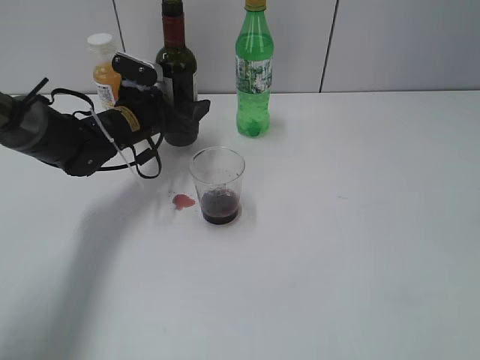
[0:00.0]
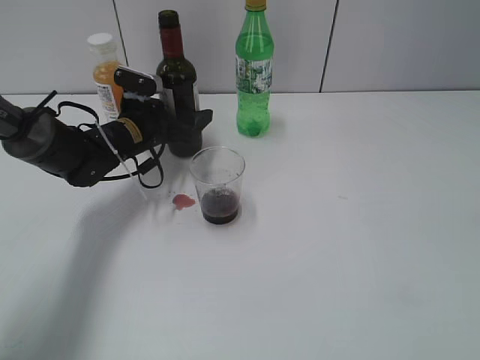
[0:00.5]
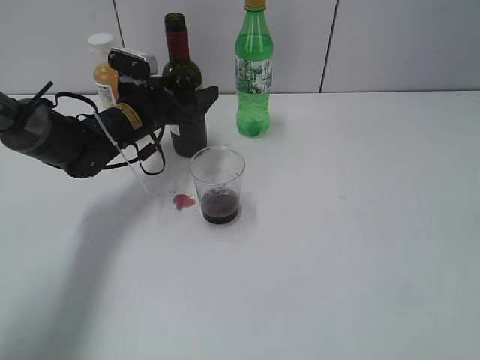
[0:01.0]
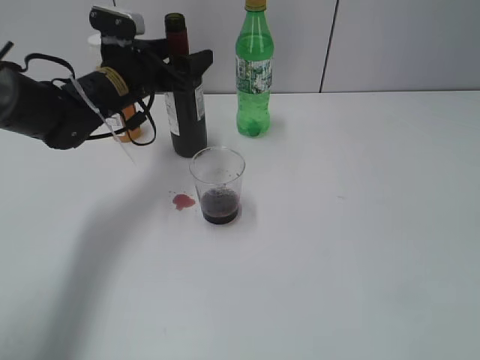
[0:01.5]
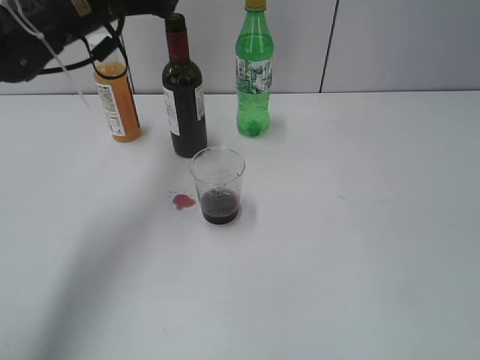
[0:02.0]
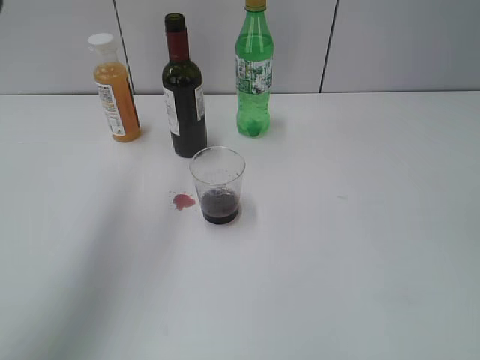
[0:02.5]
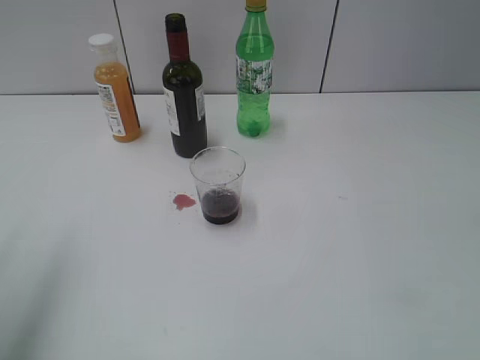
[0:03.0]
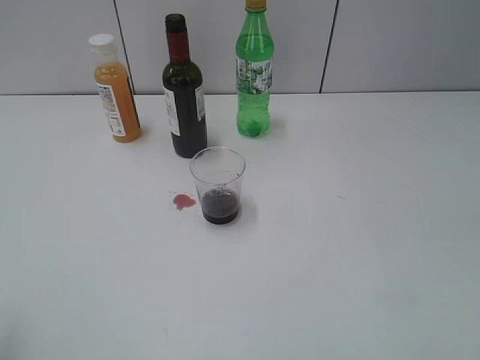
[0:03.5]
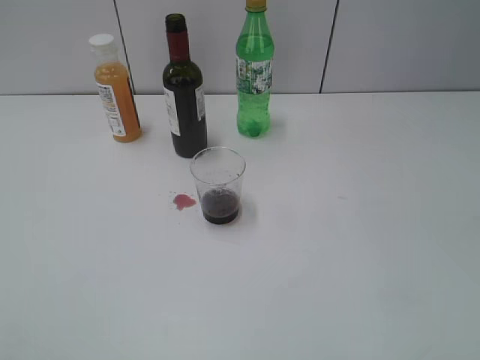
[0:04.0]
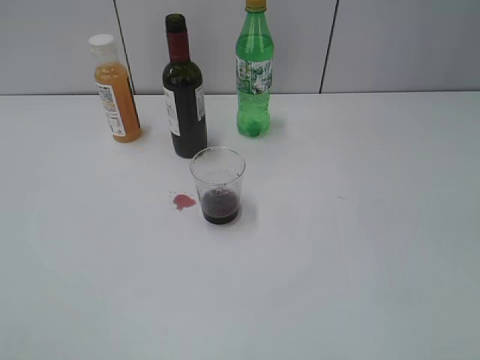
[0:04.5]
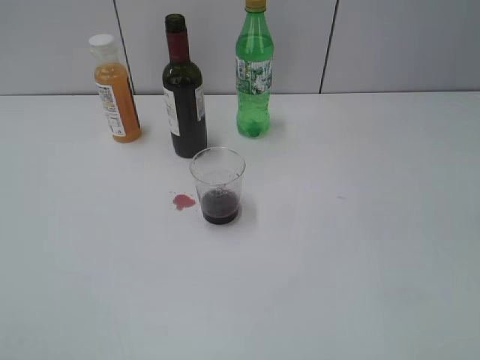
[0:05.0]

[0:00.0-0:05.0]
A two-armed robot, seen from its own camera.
0:00.0 to 0:02.5: The left gripper heads upward and backward, covering some 30 cm.
0:02.5 to 0:05.0: The left gripper is displaced backward by roughly 30 cm.

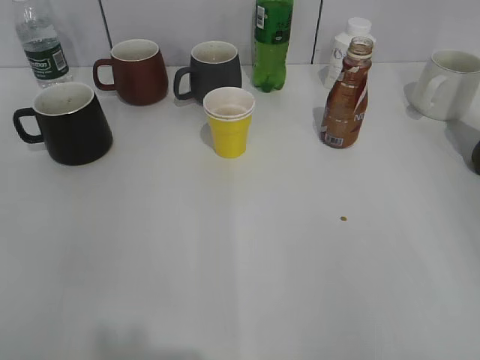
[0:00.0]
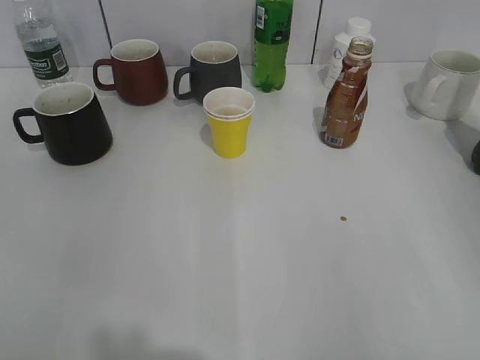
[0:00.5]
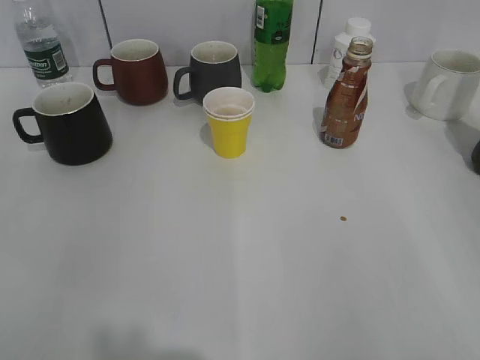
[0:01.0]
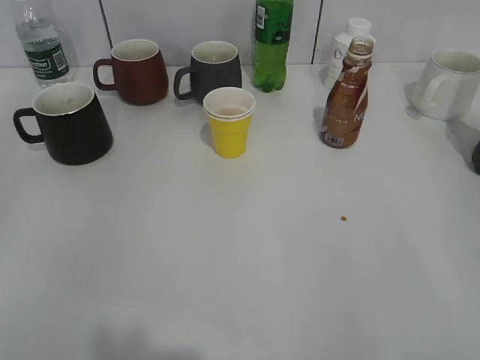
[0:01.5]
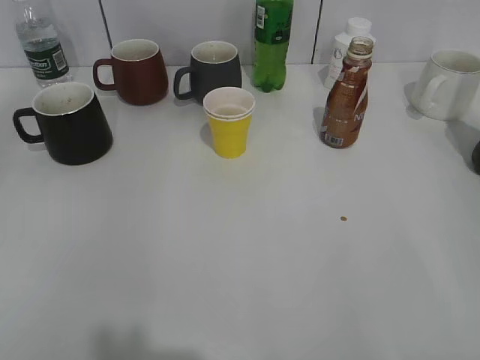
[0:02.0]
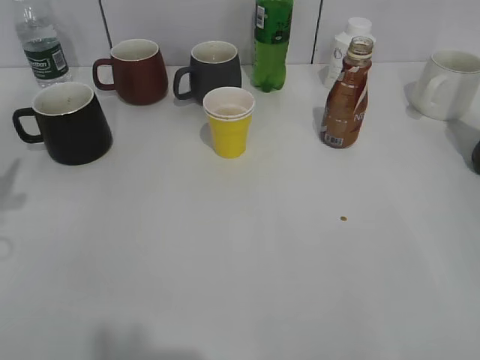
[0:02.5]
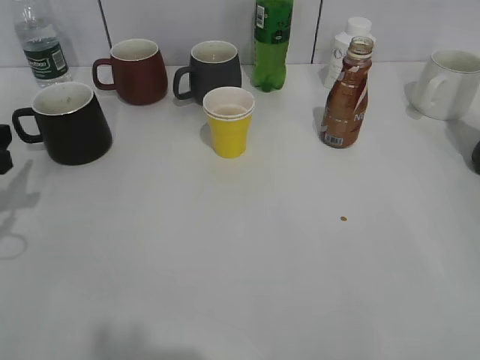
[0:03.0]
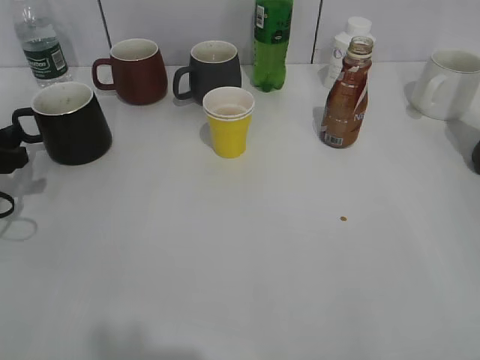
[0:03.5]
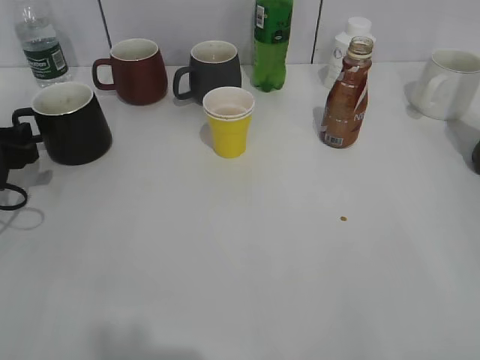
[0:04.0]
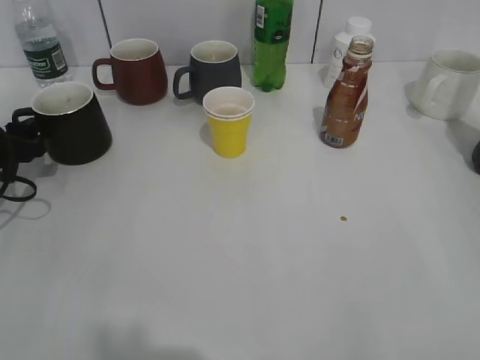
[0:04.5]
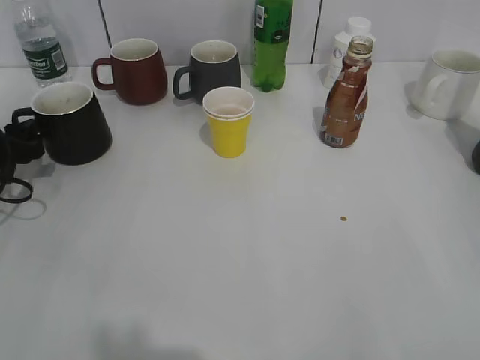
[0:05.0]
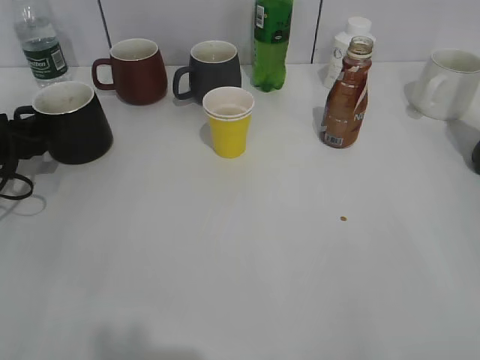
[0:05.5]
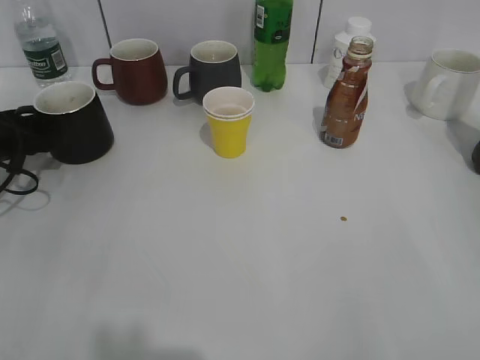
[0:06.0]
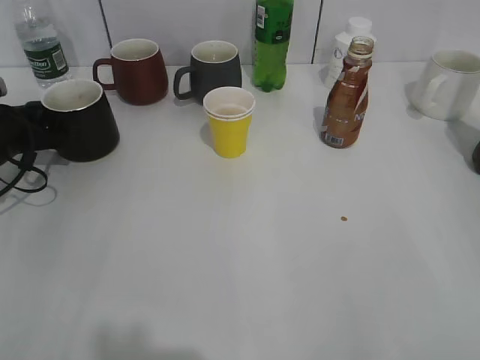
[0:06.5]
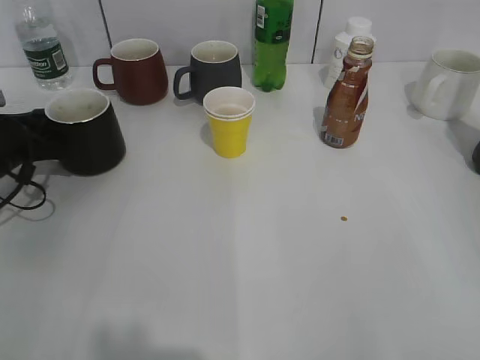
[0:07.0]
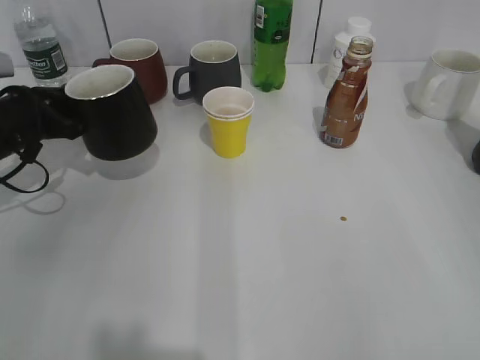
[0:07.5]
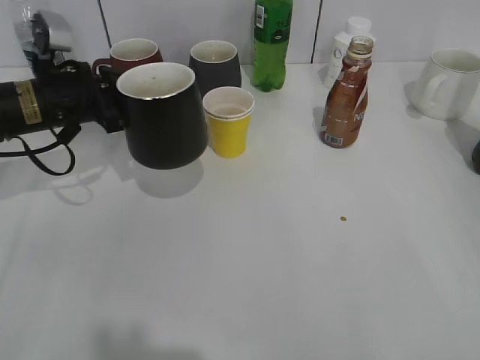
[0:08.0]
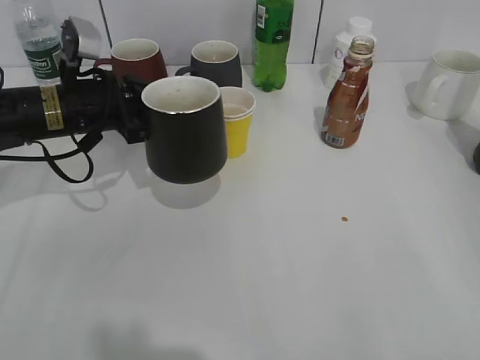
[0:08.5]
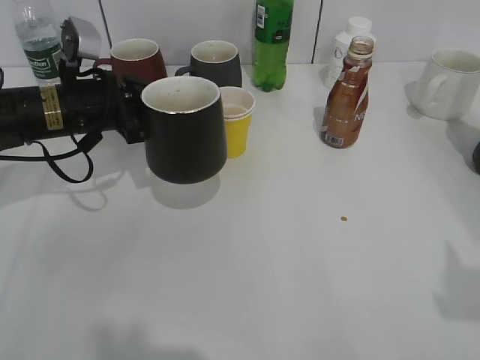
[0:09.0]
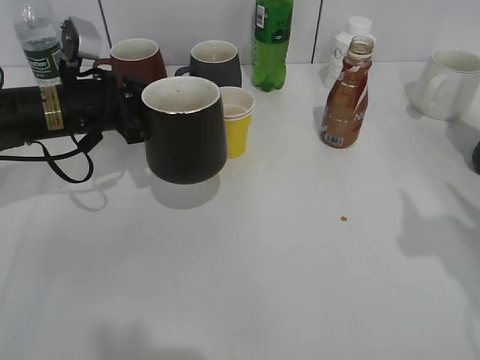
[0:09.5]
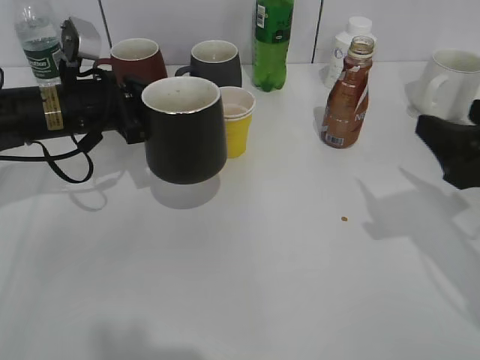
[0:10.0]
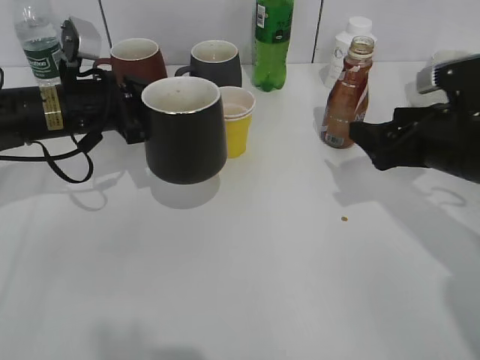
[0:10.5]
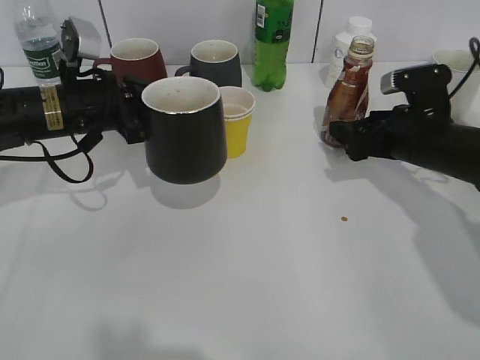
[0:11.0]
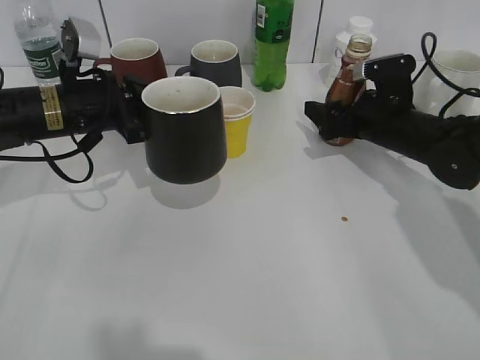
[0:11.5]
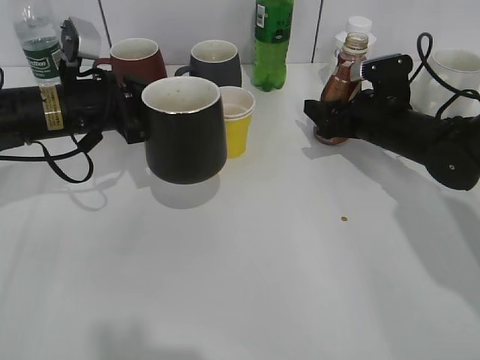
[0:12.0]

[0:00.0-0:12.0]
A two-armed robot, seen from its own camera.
Step, 0:01.5 to 0:06.5: Grasp the black cup with left gripper.
Step, 0:07.0 to 0:08.0: Lift the black cup with left gripper.
0:02.0 to 0:04.0: The left gripper shifts approximately 25 cm downward and forward.
0:04.0 to 0:06.0: The grippers move only a little.
0:06.0 to 0:08.0: The left gripper is displaced to the right and upward by roughly 10 cm, and closes up.
0:08.0 to 0:10.0: The right gripper is displaced forward by about 20 cm.
0:10.0 to 0:12.0: The right gripper goes roughly 20 cm forward and downward, and closes its fingers.

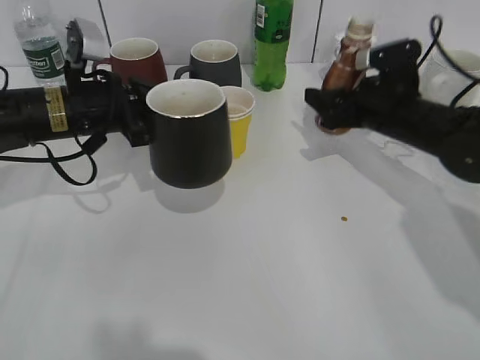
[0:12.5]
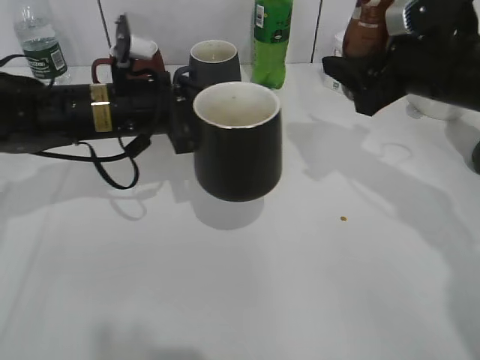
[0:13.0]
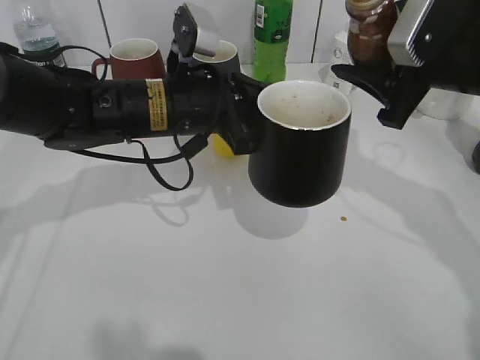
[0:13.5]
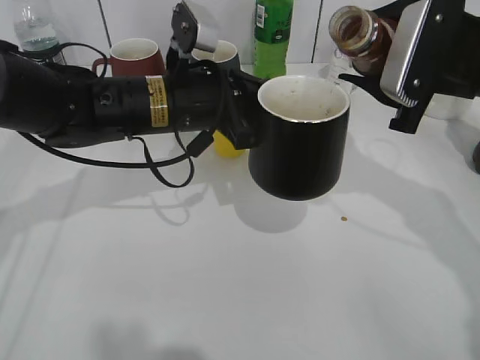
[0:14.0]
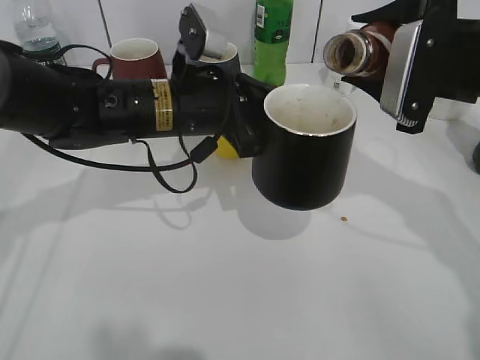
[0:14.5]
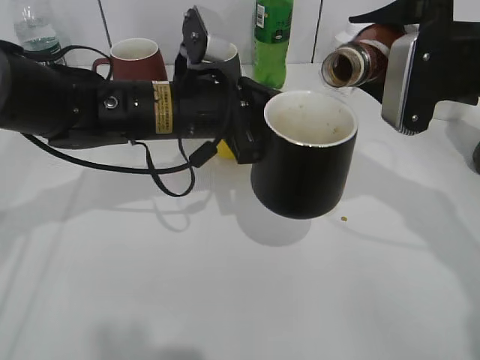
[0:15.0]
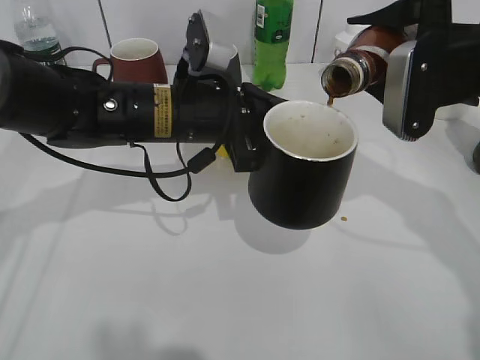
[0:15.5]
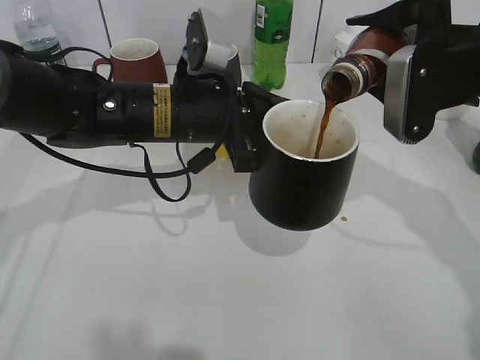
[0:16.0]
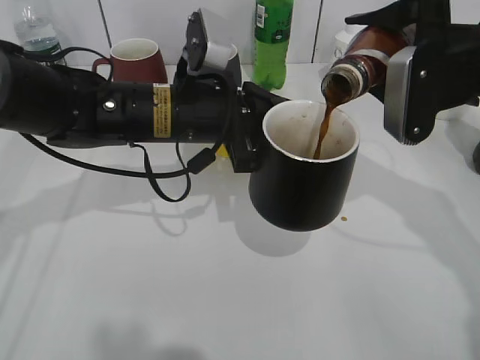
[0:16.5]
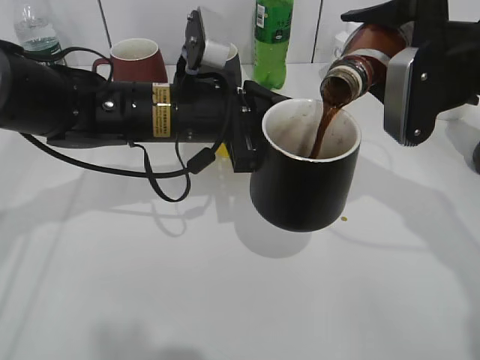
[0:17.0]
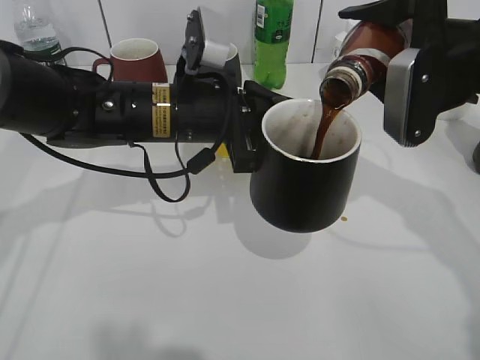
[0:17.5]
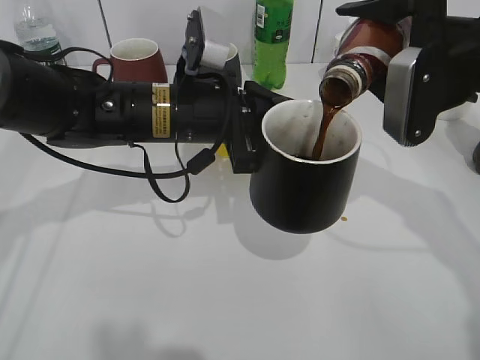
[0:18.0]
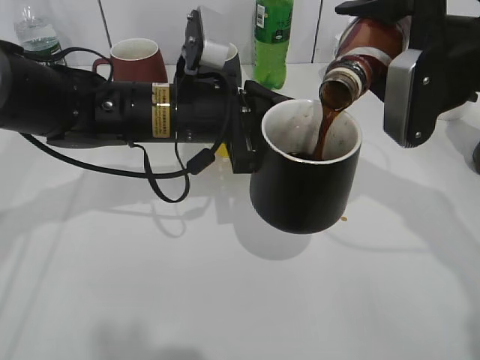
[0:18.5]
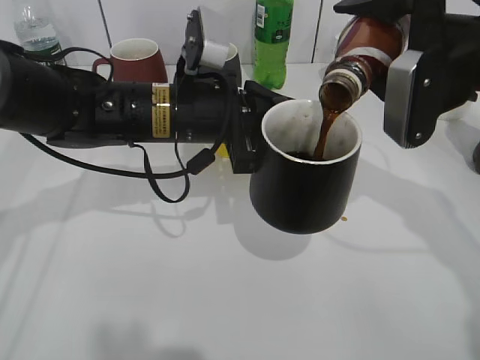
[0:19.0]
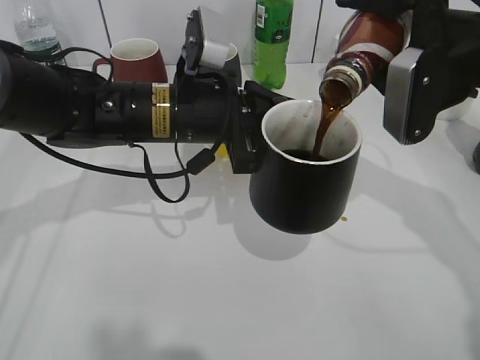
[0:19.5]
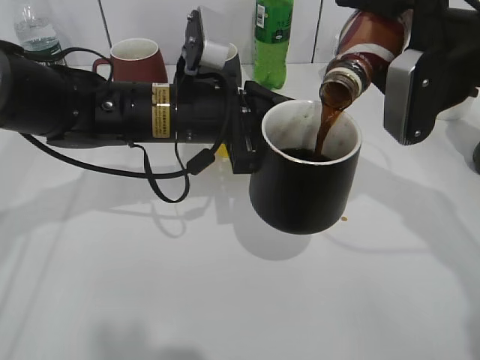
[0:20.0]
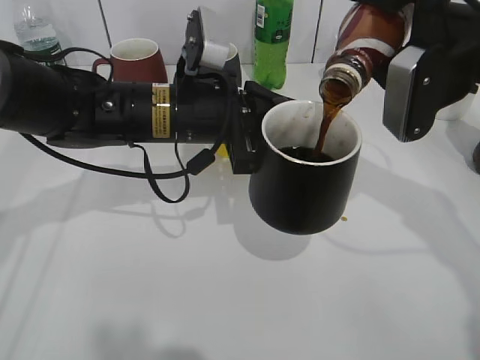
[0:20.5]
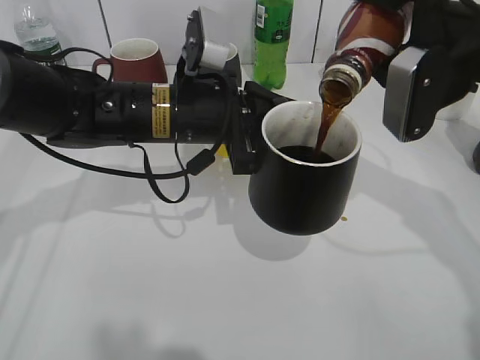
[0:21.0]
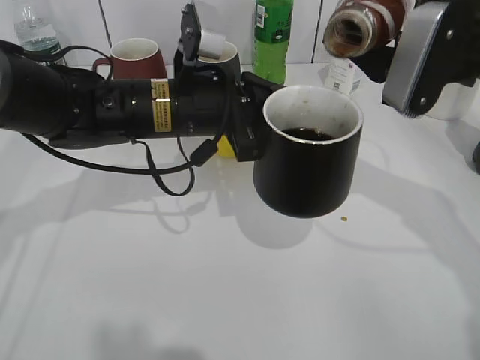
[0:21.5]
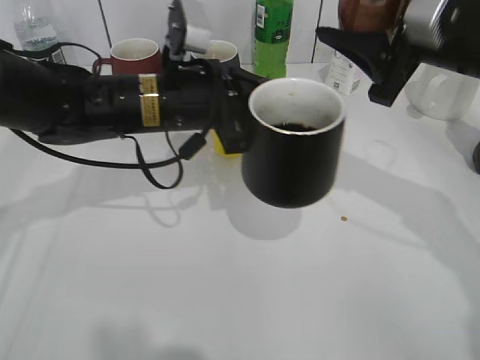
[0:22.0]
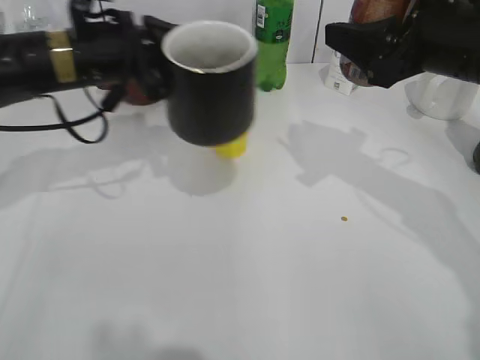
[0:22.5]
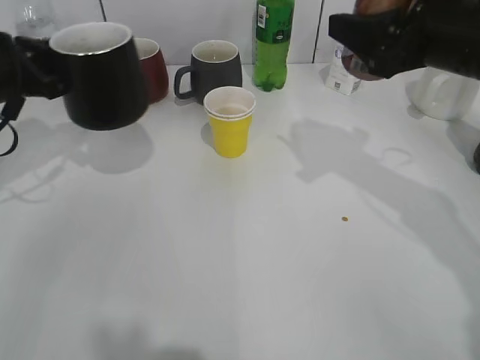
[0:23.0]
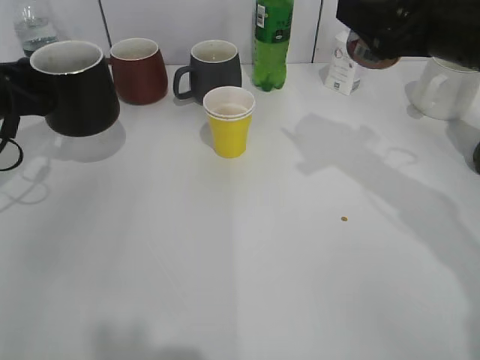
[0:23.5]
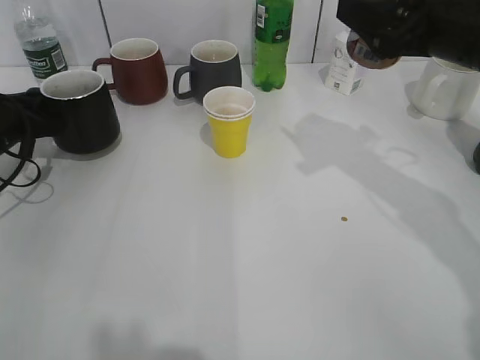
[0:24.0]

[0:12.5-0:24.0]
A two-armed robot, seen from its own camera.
Step, 0:12.5 to 0:21.5: Pour the coffee from bottle to cup with right gripper.
0:12.5 to 0:14.5: The left gripper moves to the right, approximately 10 cm. The right gripper is displaced upward and backward by about 15 cm.
0:14.5 to 0:16.5: The grippers make only small movements.
0:16.5 to 0:20.0: There are only small adjustments of the grippers.
0:22.0 to 0:24.0: The left gripper is displaced to the left by roughly 25 cm.
